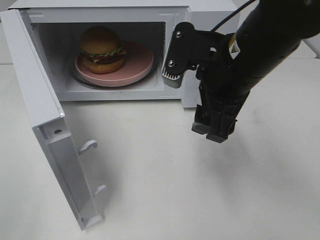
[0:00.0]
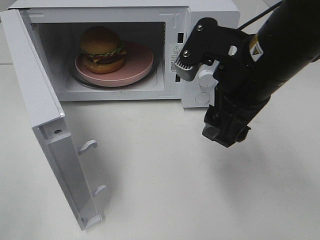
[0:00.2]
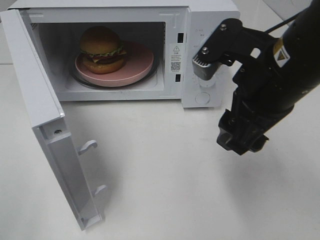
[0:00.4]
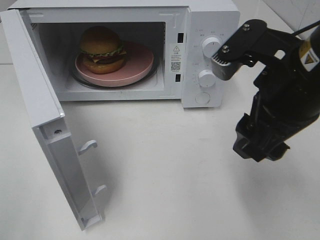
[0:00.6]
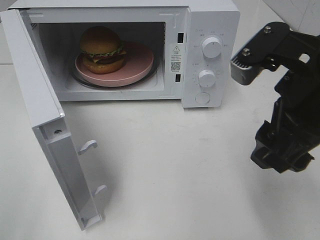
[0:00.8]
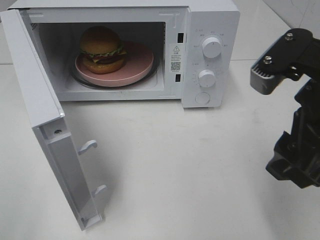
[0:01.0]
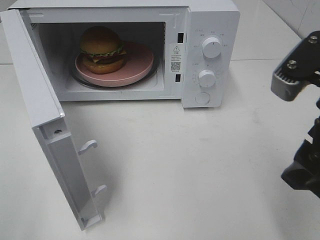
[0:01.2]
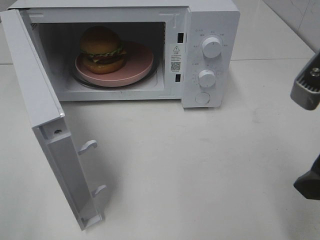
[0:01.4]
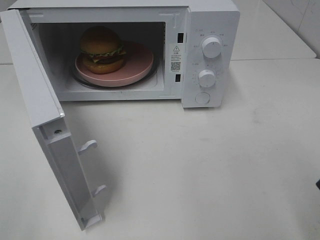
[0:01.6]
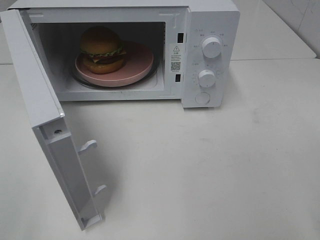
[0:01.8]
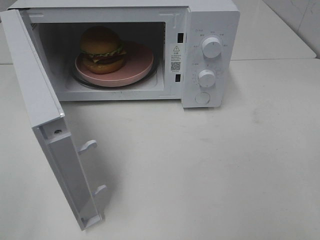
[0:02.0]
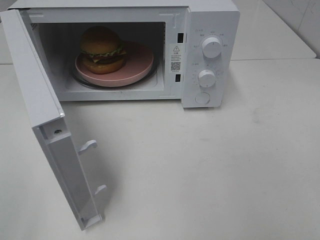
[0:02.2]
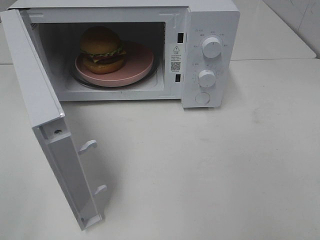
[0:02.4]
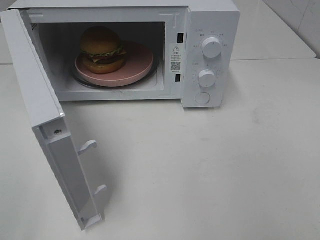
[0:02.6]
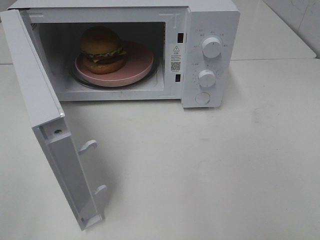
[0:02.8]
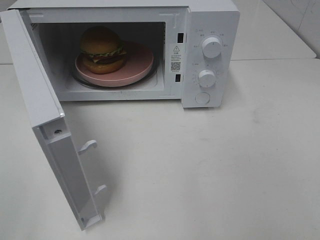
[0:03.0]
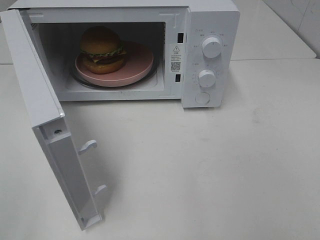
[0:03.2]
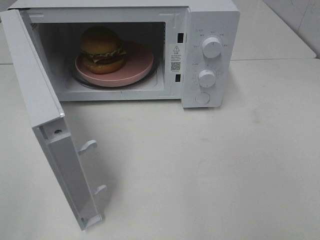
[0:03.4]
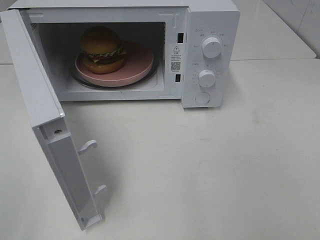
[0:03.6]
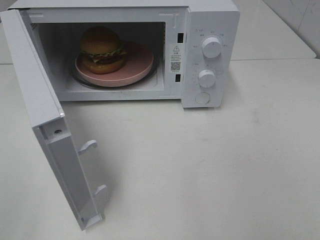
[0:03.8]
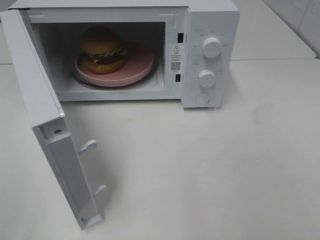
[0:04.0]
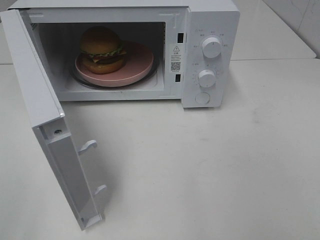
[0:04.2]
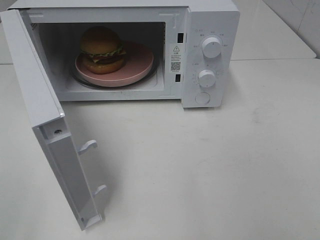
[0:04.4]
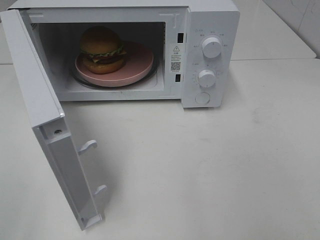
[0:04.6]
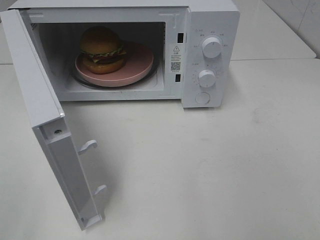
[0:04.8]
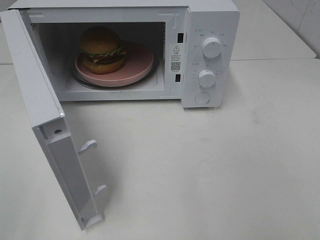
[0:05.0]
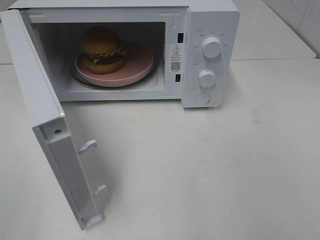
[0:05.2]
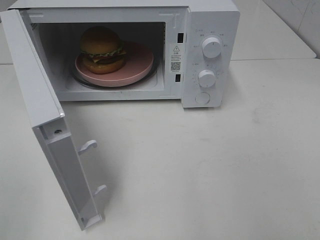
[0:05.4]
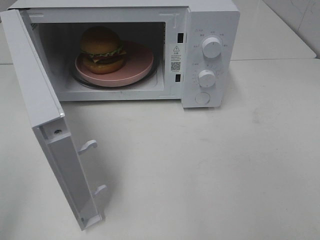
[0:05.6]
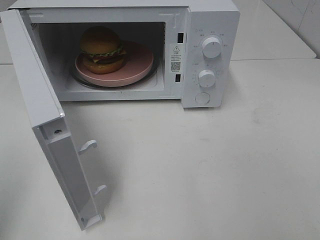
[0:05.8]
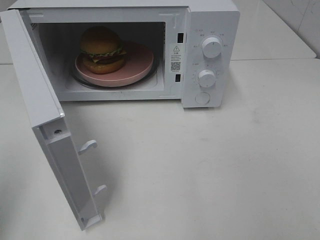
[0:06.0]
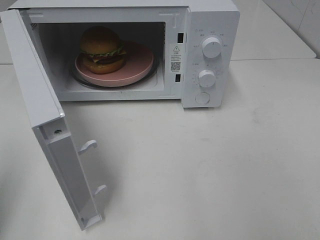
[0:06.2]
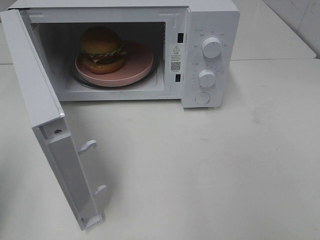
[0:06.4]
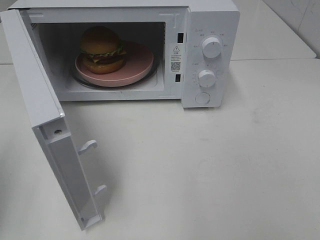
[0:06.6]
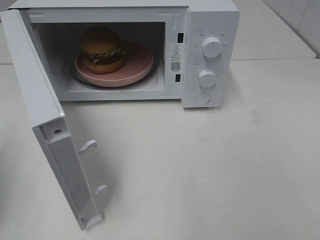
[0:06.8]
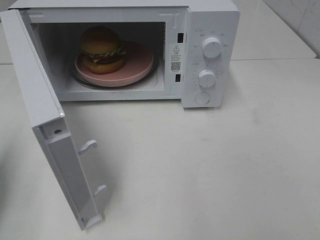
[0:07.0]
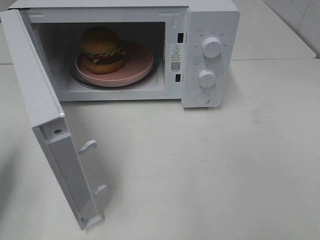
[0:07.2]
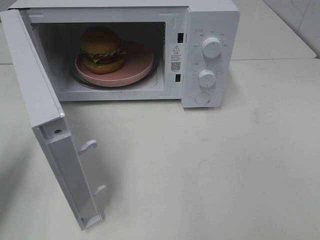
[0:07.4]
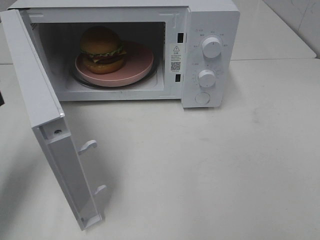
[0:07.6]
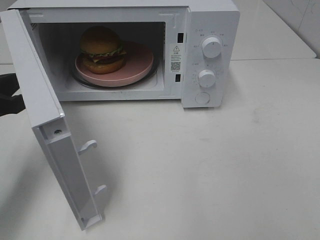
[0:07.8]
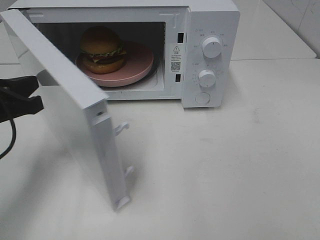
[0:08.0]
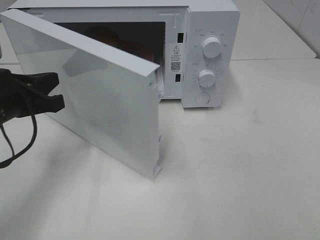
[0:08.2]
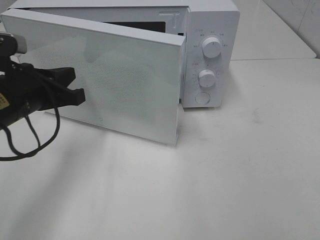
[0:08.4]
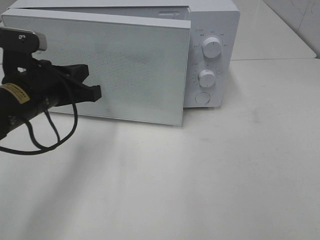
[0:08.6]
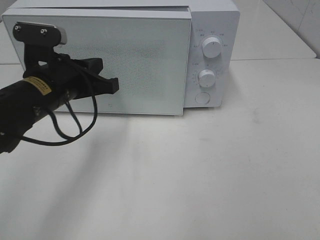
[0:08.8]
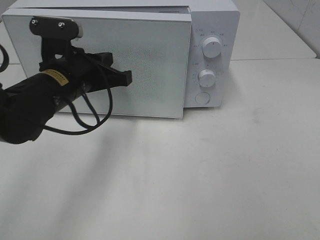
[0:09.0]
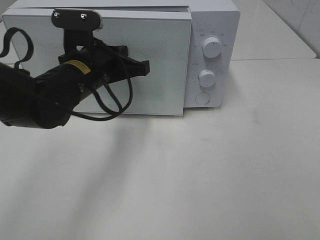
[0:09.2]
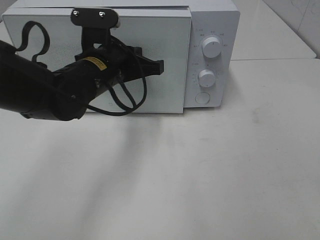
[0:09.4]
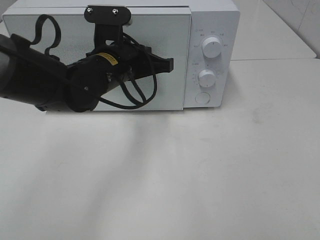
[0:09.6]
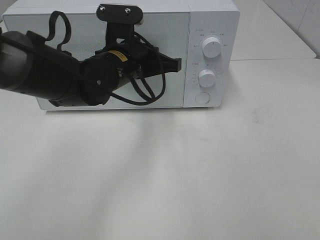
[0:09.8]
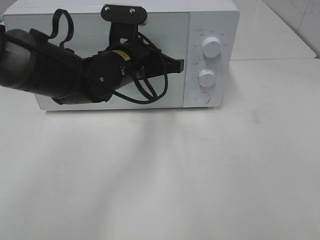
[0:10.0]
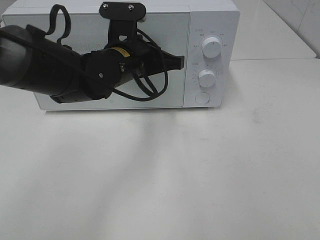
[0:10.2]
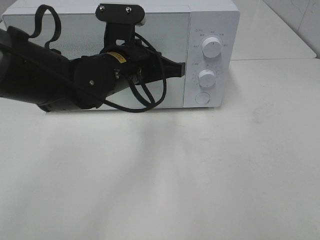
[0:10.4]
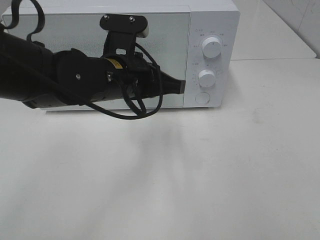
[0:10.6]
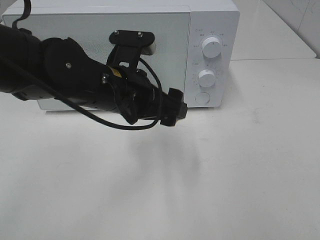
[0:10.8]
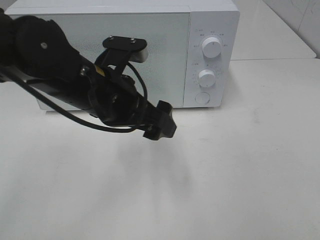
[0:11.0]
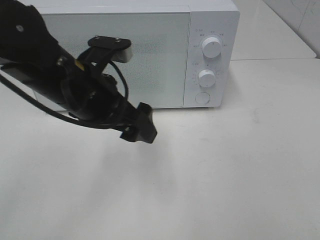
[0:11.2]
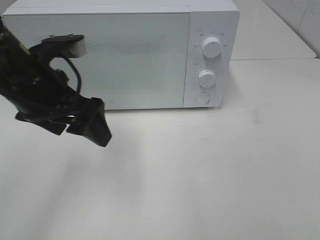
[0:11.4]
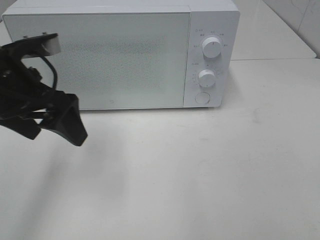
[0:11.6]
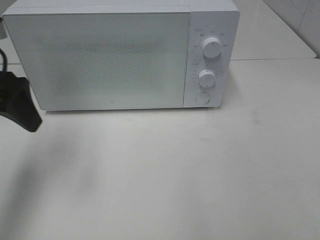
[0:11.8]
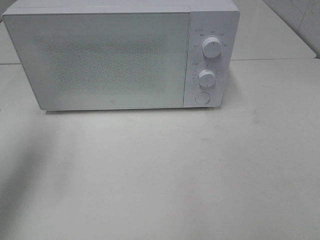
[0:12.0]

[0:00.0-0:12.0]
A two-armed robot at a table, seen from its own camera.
Task of the whole recording: Heat the burger.
Step, 0:00.0 to 0:10.6: Left hand: close the microwave door.
0:00.0 to 0:01.6: The right gripper travels to the right and backward by approximately 20 cm.
0:01.6 to 0:03.0: The right gripper heads backward and to the right, covering about 15 cm.
0:03.0 to 0:04.4: Both grippers stay about where they are.
0:06.0 to 0:07.6: The left gripper is displaced forward and downward by roughly 15 cm.
0:07.6 to 0:09.0: The left gripper shifts some 20 cm to the right and forward.
0:09.0 to 0:10.4: The left gripper goes roughly 10 cm to the right.
0:10.4 to 0:12.0: The left gripper shifts approximately 25 cm to the left, and opens up.

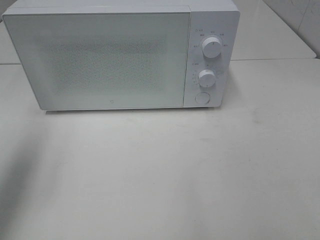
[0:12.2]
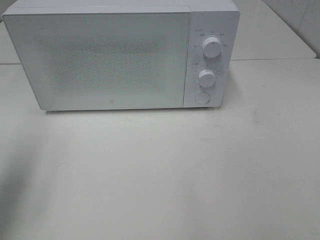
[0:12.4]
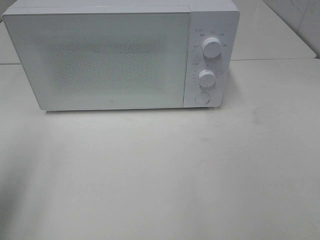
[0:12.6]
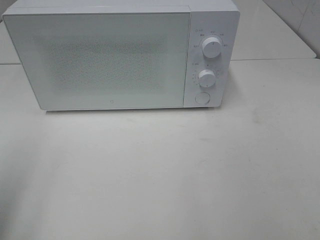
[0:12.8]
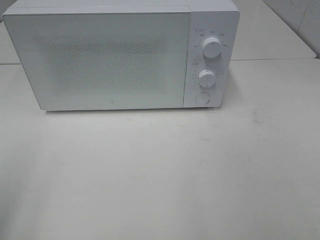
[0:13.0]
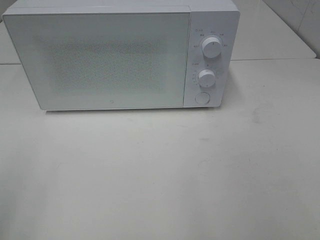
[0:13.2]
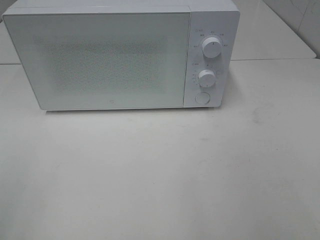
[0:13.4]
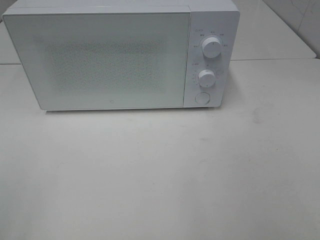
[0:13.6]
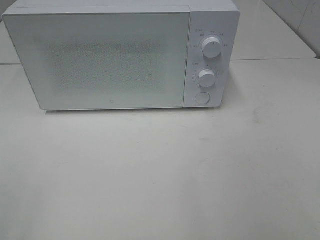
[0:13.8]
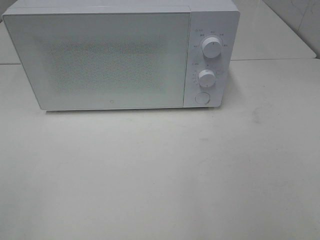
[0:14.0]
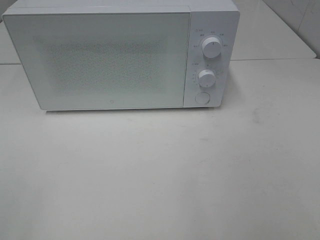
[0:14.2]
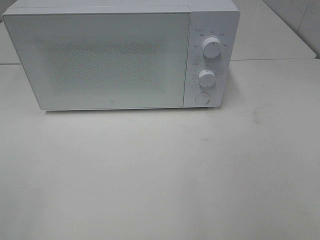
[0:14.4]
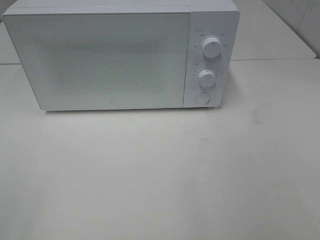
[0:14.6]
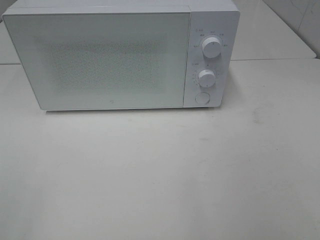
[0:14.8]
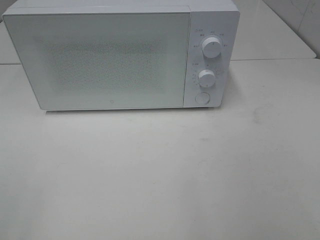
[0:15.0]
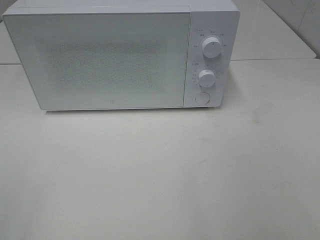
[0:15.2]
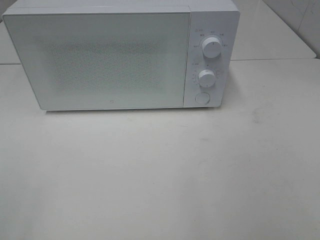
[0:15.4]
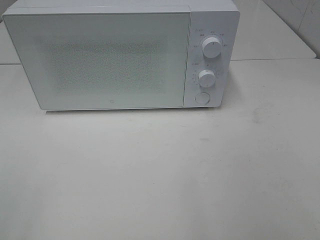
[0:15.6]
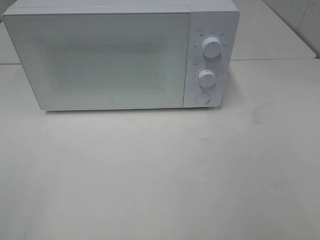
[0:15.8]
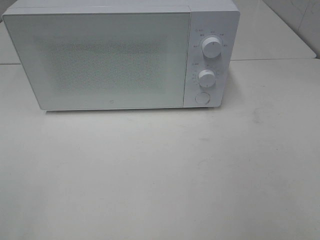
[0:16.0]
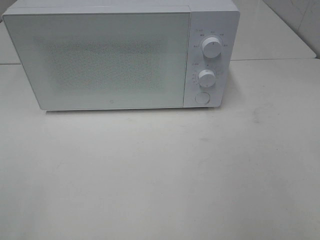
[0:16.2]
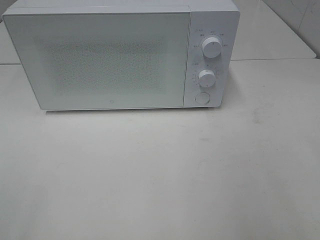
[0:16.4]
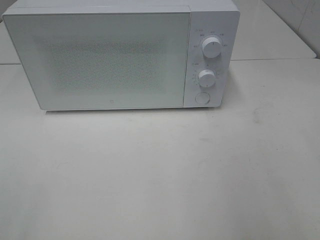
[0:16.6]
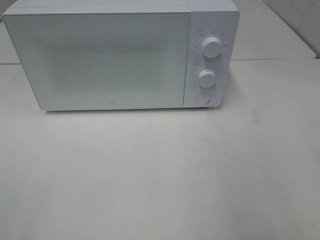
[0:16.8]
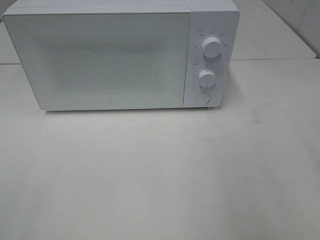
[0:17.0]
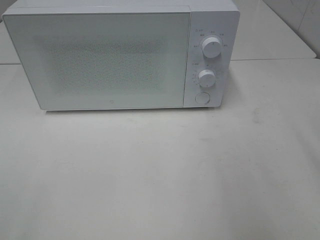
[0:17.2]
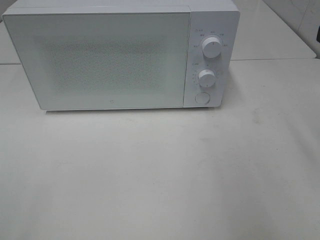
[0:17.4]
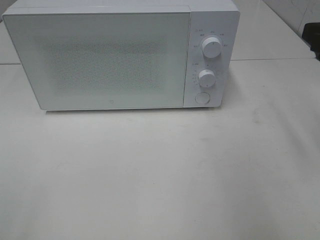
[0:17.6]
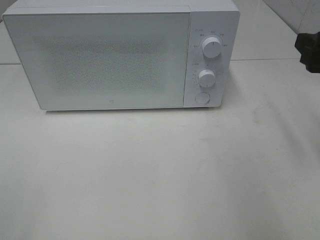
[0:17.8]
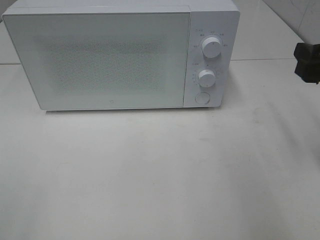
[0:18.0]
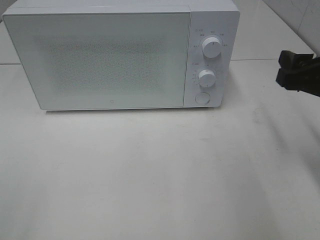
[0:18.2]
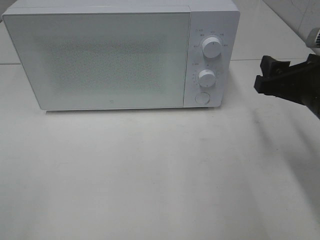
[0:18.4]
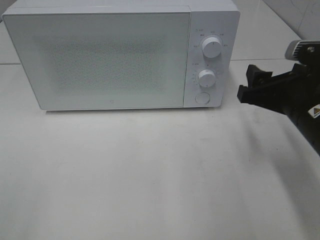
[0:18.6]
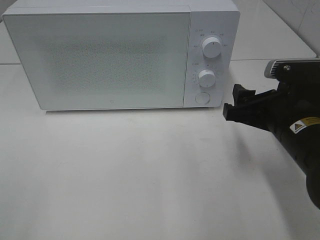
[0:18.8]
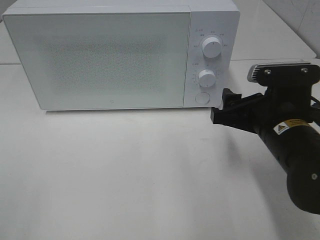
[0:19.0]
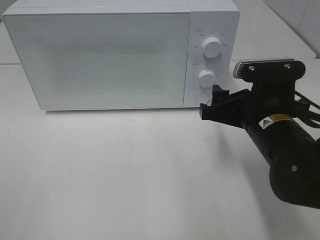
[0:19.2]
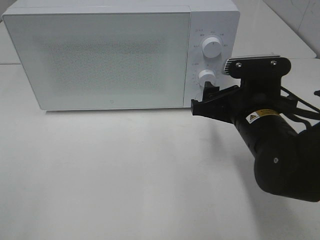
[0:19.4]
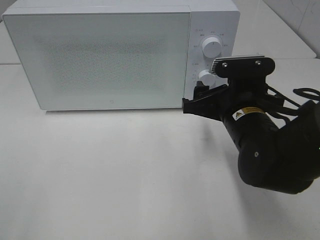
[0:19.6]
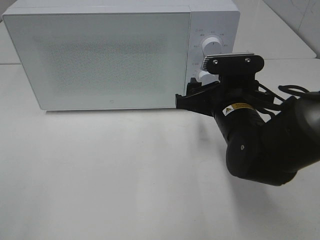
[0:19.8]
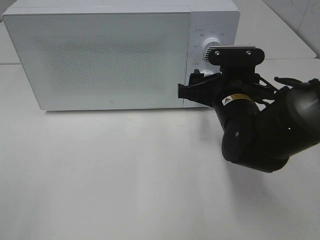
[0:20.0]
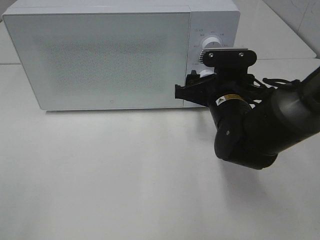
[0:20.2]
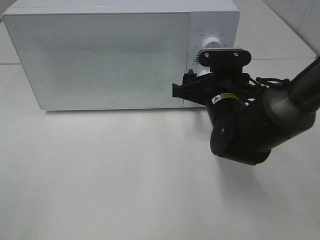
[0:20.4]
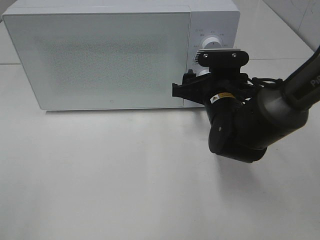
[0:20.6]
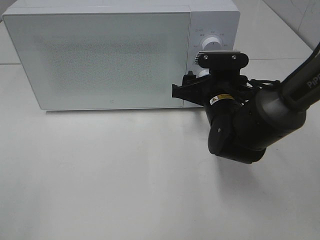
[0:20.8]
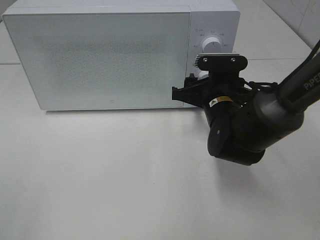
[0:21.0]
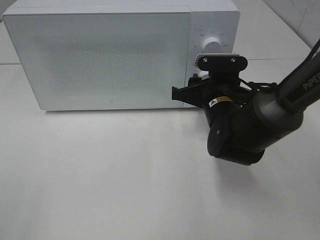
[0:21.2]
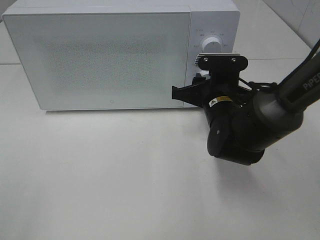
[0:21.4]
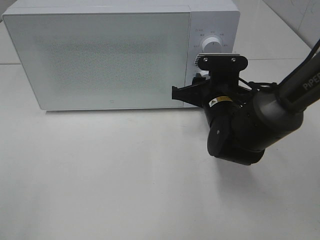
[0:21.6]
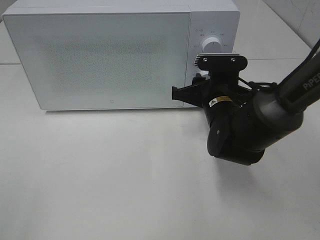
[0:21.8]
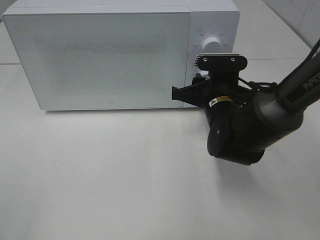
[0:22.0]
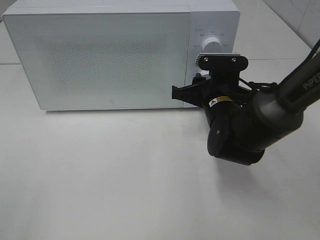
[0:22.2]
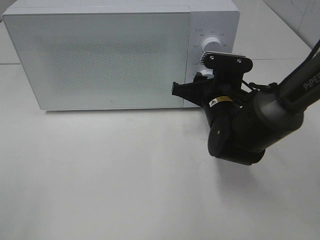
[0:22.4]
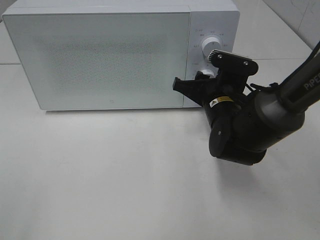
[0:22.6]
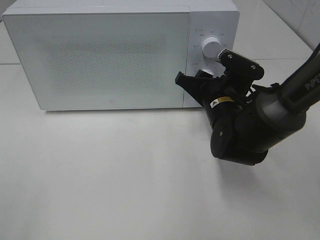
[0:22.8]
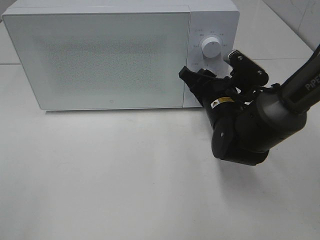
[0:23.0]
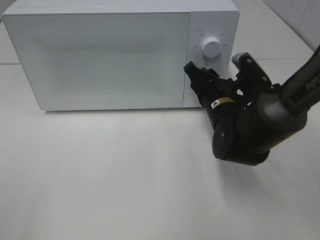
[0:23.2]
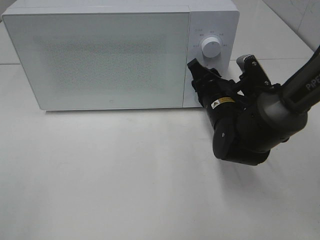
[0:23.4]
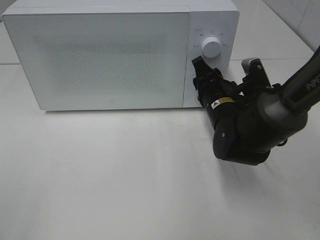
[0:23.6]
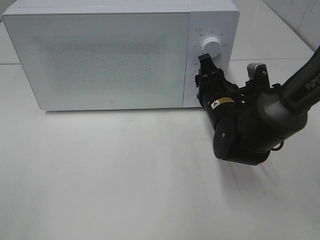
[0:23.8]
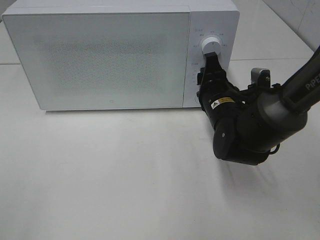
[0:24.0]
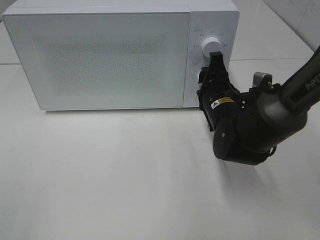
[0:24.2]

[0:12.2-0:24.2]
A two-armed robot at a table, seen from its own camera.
Task of the whole recording: Heat the burger.
0:12.2 to 0:13.8: The left gripper shifts some 20 cm backward.
0:13.8 to 0:15.2: Both grippers stay put.
0:16.6 to 0:18.2: The right gripper heads forward and downward, covering approximately 15 cm.
0:18.2 to 0:19.8: The right gripper moves to the left and downward, approximately 15 cm.
0:19.8 to 0:21.2: The right gripper changes place by some 5 cm.
0:21.2 to 0:22.6: The grippers move only a little.
